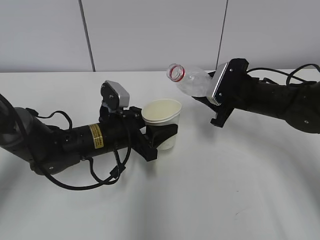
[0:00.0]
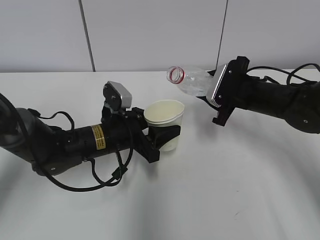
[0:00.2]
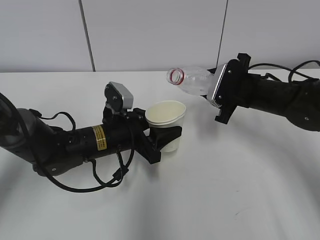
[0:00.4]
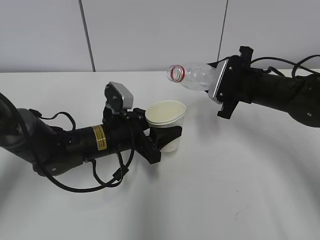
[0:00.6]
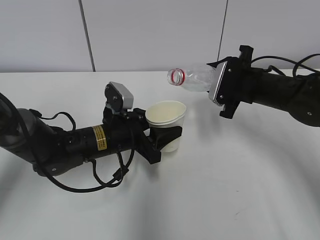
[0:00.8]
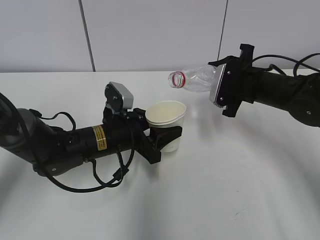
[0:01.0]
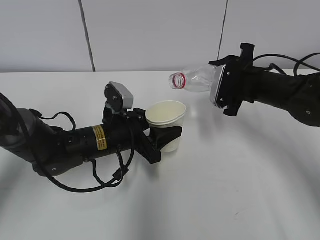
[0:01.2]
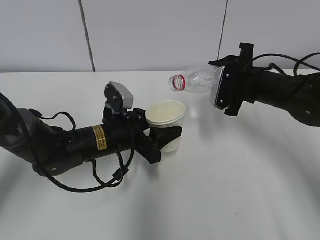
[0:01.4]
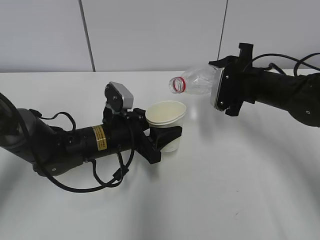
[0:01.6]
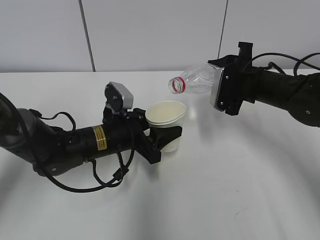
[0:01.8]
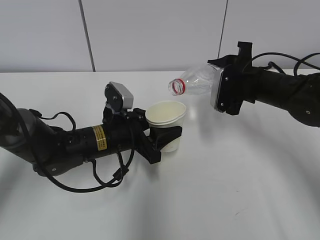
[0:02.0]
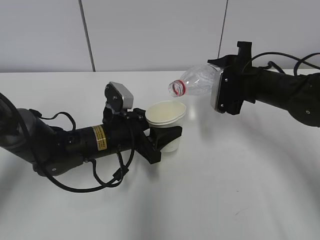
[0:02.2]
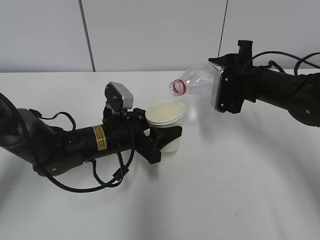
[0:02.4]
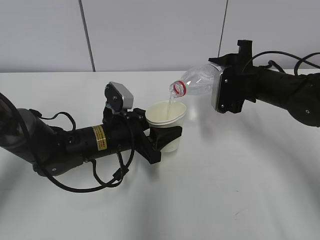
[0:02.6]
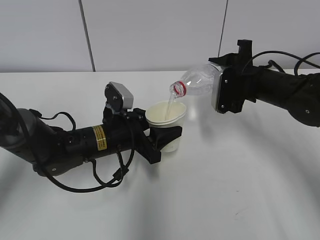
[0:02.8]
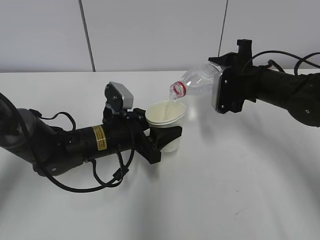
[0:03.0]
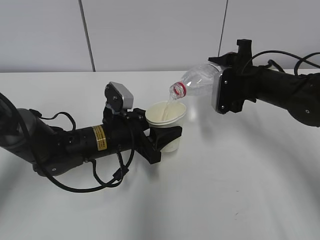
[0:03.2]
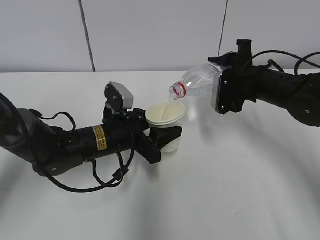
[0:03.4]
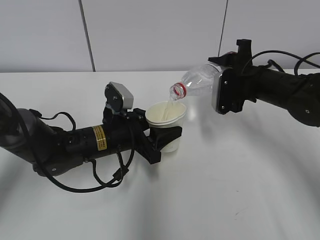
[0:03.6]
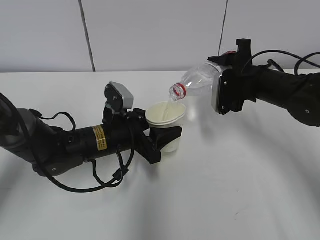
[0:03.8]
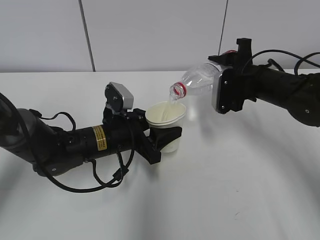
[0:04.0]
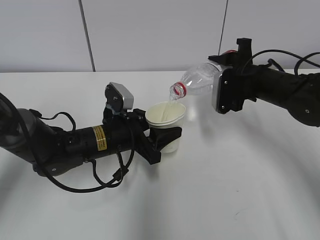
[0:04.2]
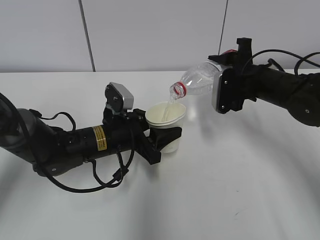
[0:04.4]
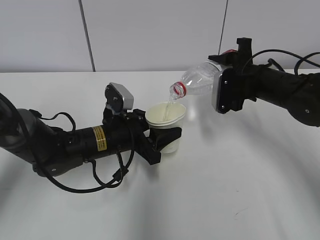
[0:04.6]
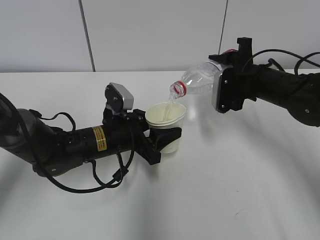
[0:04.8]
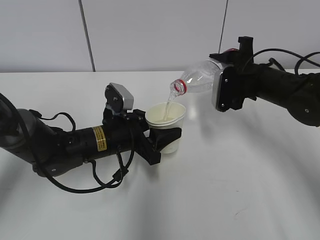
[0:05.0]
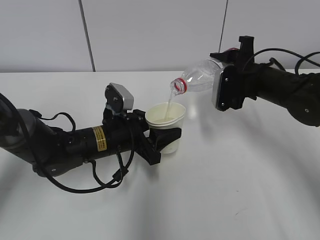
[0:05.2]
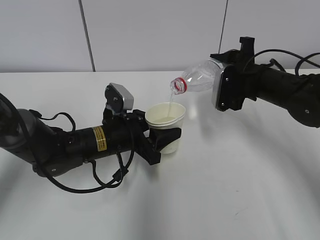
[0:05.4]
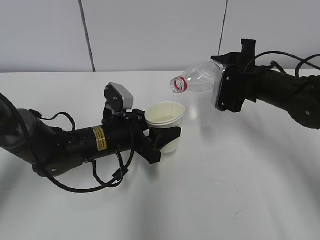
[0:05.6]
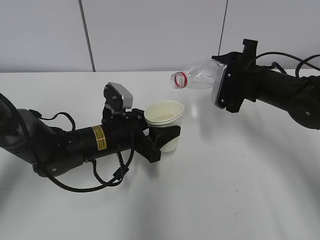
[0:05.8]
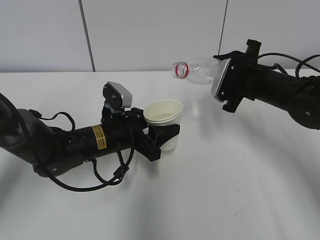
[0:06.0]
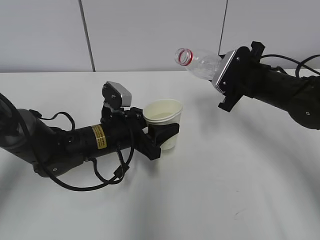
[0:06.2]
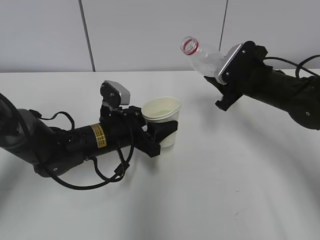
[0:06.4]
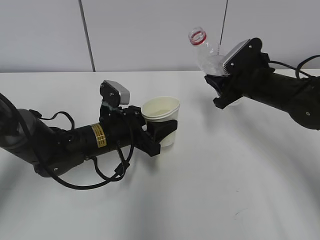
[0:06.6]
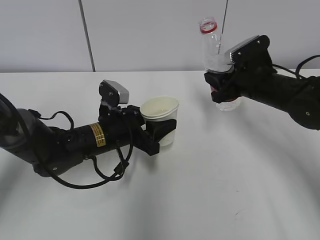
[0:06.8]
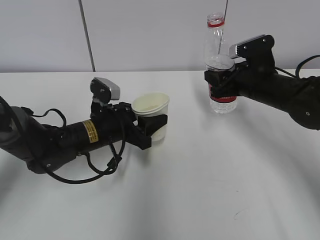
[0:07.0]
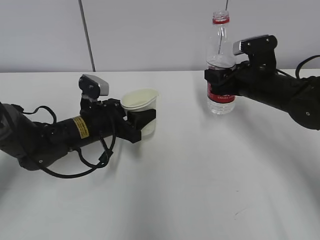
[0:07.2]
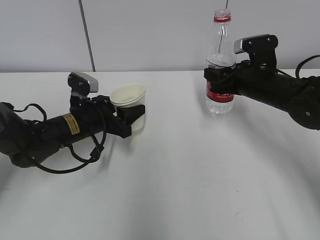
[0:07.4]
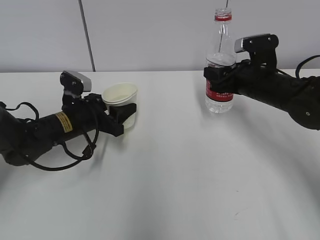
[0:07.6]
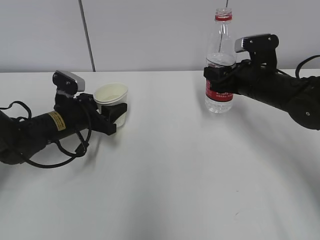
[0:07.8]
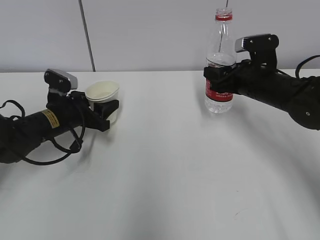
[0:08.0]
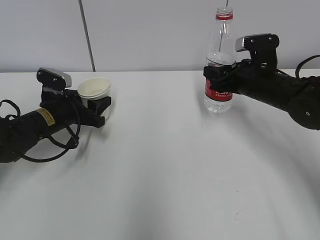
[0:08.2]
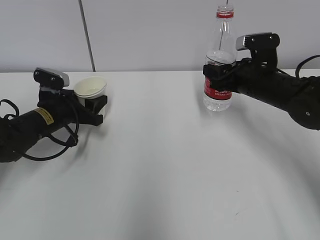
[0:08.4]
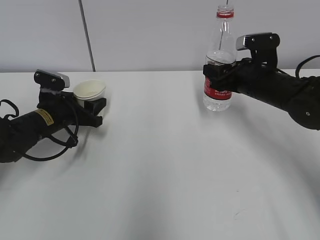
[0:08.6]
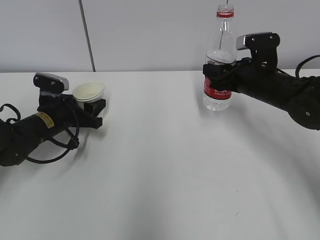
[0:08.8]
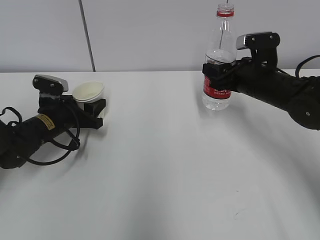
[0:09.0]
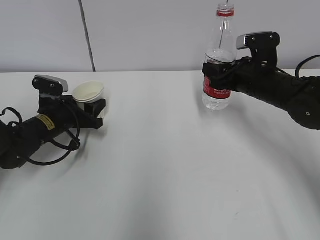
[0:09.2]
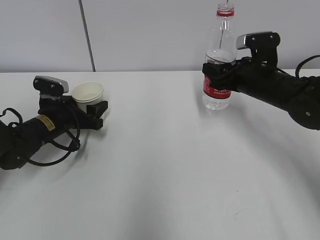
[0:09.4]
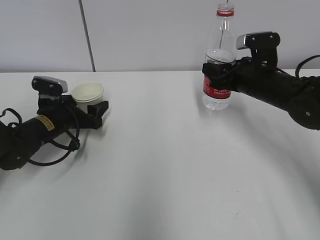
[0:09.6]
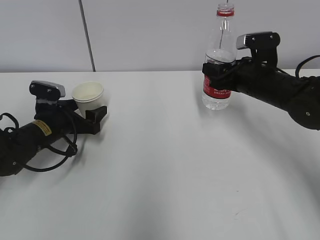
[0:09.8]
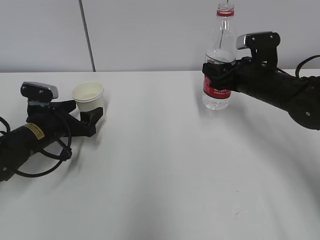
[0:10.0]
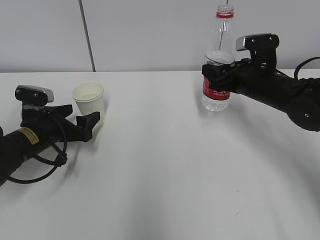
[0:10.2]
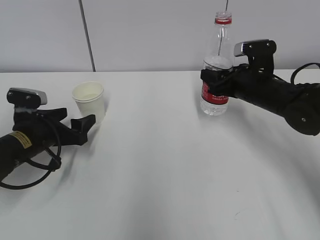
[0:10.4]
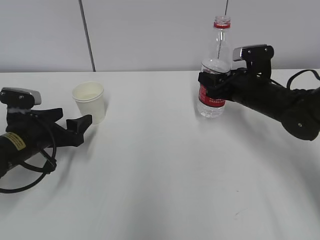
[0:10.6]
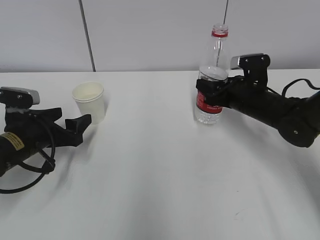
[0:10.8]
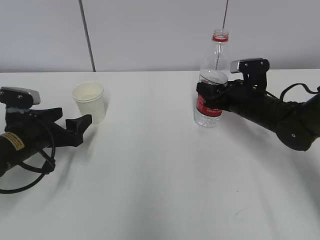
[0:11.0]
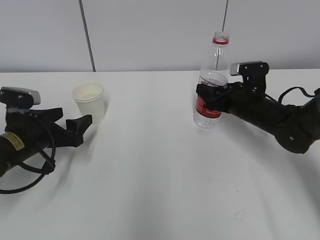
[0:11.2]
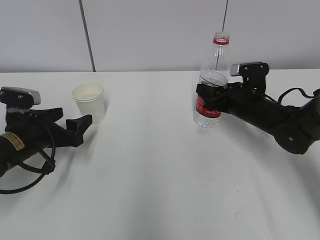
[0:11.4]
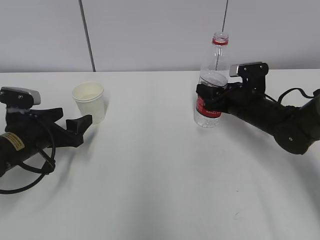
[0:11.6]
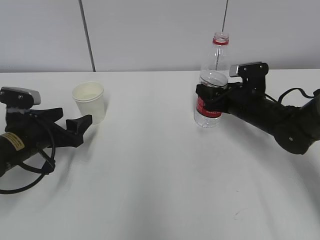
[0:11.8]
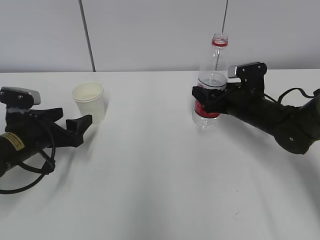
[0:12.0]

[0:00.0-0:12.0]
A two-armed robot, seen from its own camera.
Step, 0:00.0 to 0:02.6: Fill water with the left hand.
Step, 0:00.0 to 0:02.6: Pour water with the right hand.
Step, 0:04.2 to 0:05.6: Place the paper cup with the left hand.
0:01.6 to 0:03.0: The grippers make only small movements.
0:03.0 to 0:04.4: The two grippers keep their place.
0:04.4 to 0:06.0: The grippers move only a little.
0:06.0 to 0:07.6: The left gripper travels to the left by about 10 cm.
0:07.6 to 0:09.0: The left gripper moves to the left, approximately 5 cm.
0:09.0 to 0:10.4: The left gripper moves backward, about 5 cm, and opens.
0:10.4 to 0:12.0: The right gripper opens its fingers.

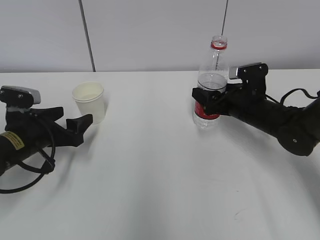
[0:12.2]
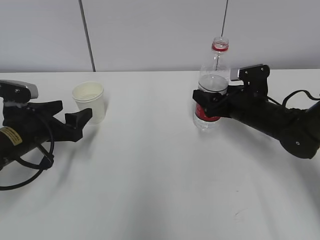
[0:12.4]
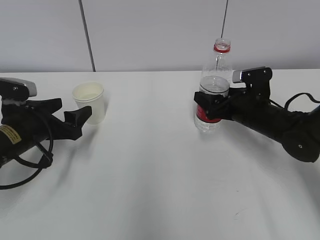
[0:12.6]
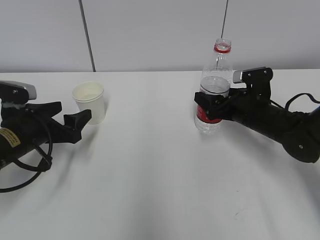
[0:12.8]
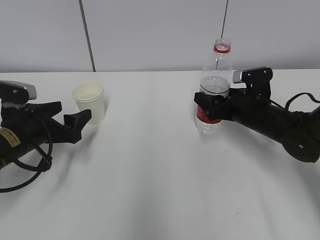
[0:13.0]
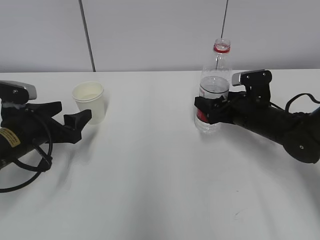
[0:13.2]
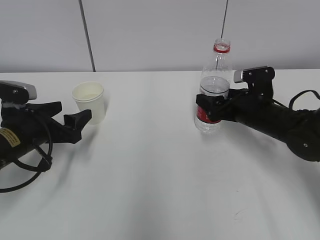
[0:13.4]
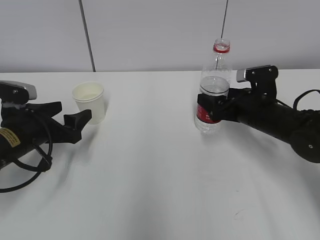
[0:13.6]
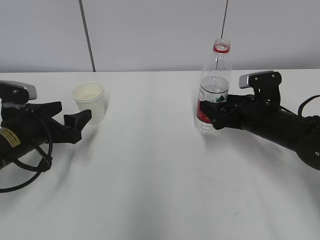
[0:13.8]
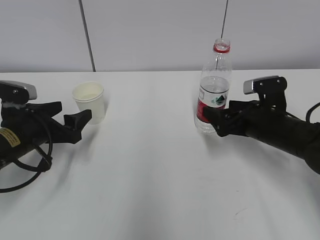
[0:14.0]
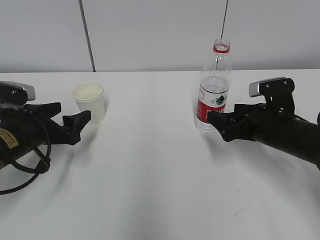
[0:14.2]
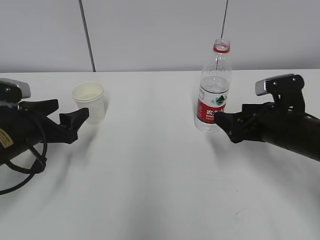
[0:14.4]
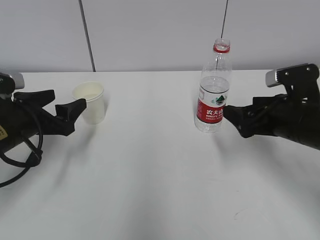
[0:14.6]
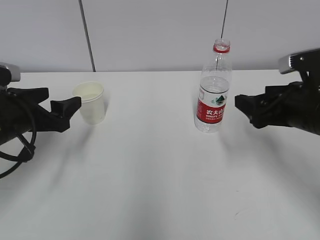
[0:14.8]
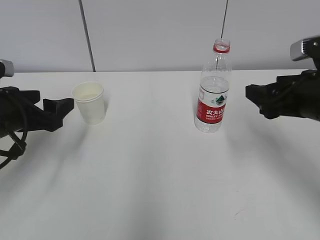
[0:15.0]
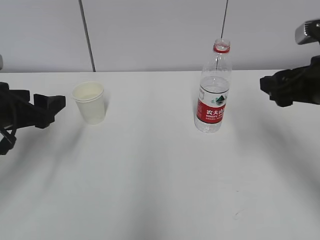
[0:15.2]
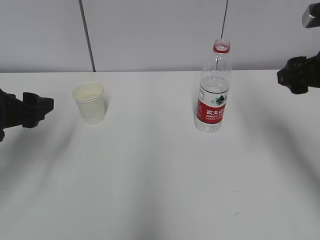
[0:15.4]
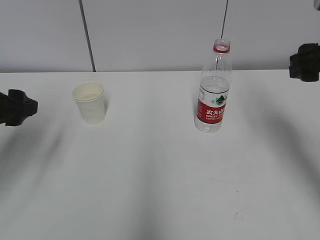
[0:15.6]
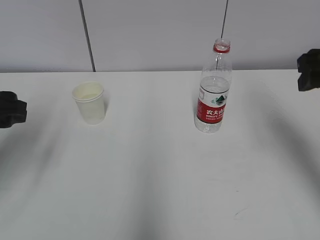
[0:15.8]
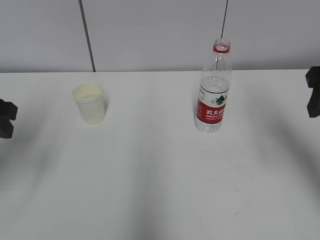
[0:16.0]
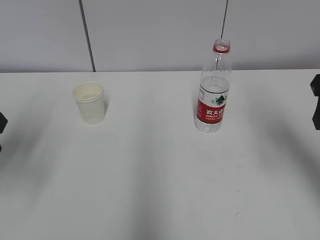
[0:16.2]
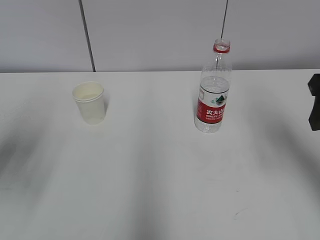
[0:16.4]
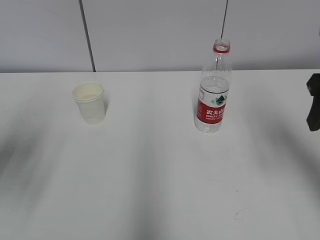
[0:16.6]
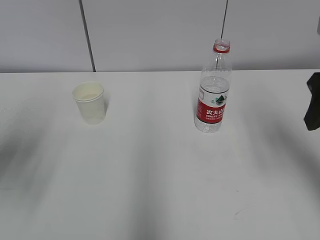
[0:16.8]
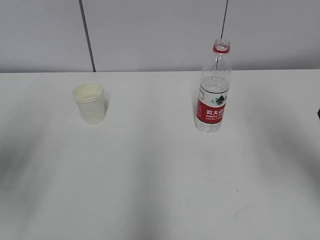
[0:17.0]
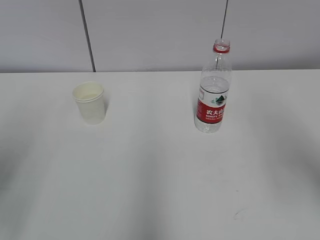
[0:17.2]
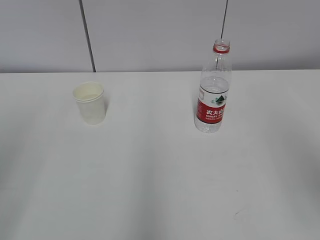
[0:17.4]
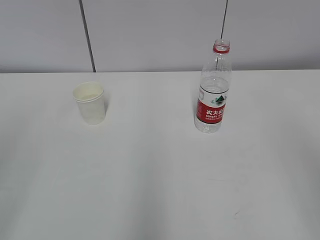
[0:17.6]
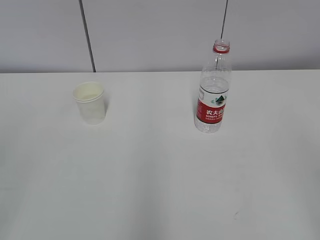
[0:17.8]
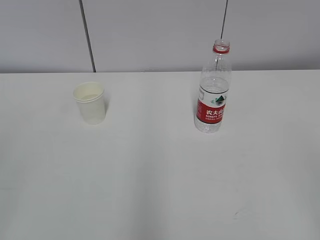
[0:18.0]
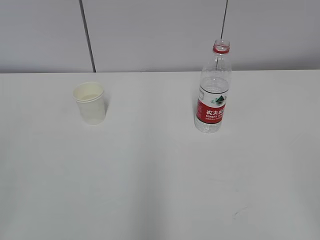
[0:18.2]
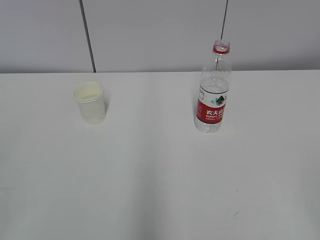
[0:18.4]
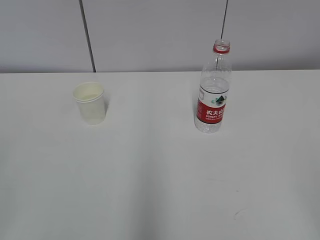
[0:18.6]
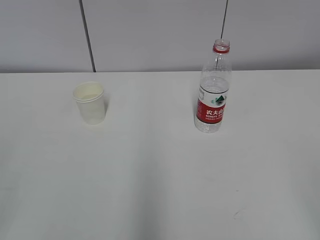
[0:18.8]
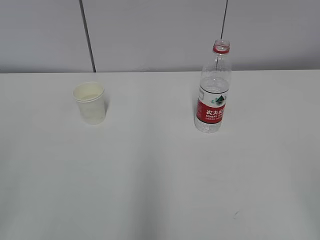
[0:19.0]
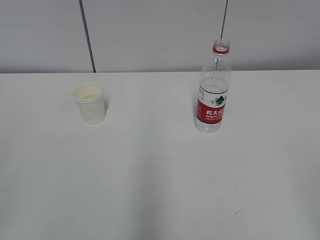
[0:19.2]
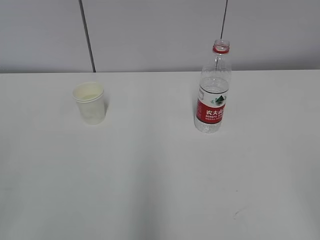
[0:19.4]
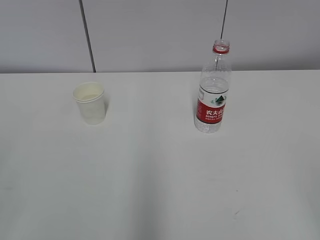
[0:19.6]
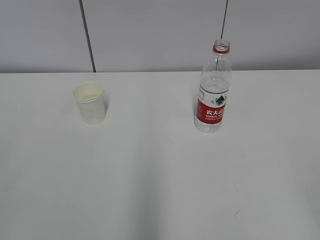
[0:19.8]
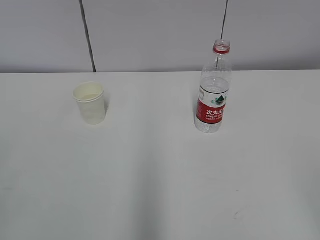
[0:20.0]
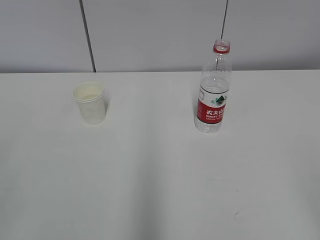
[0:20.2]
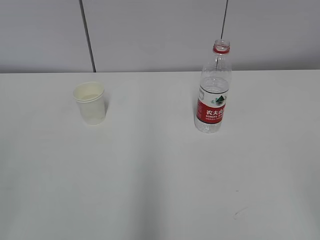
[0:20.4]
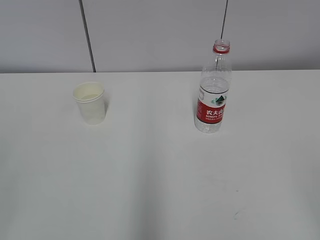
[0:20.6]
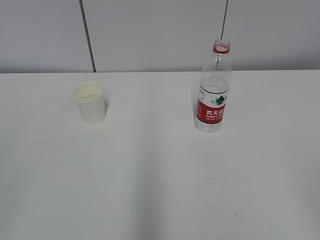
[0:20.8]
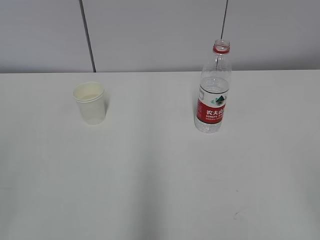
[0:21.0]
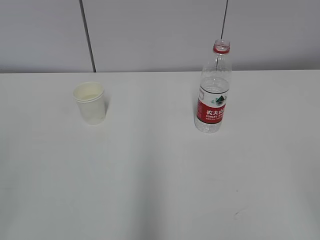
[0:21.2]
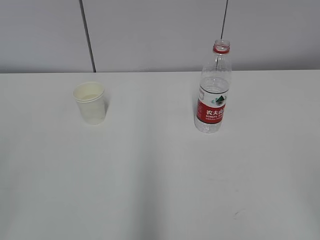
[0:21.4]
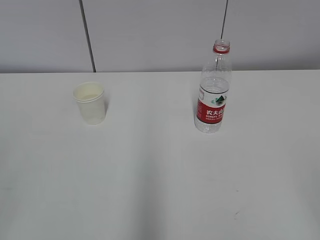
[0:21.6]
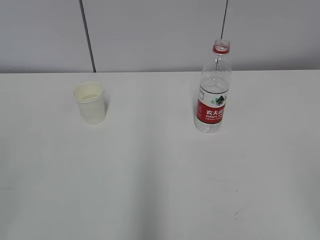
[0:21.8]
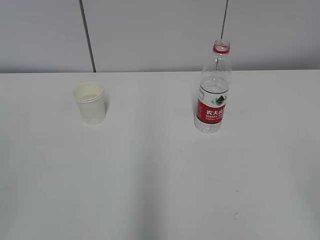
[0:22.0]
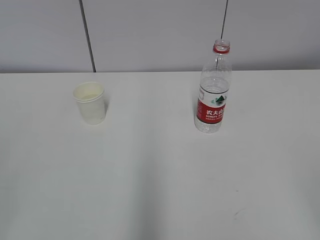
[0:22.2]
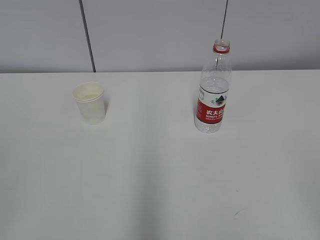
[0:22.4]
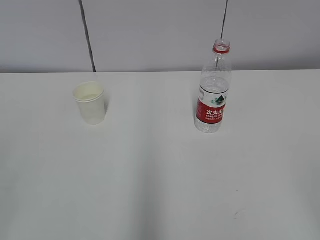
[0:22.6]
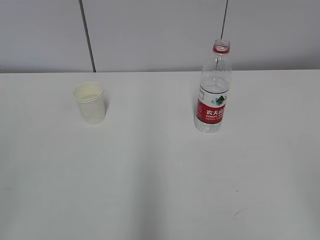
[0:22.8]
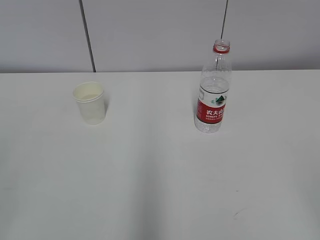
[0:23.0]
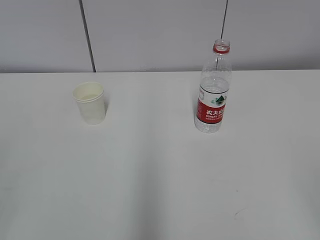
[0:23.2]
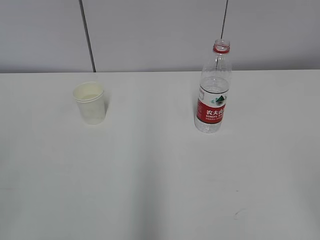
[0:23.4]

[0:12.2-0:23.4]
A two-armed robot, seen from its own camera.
0:12.2 to 0:13.8: The grippers stay close to where they were, moving slightly.
0:13.8 to 0:15.4: The left gripper moves upward, approximately 10 cm, while the right gripper shifts some 15 cm upward and backward, and closes up.
0:15.4 to 0:17.0: Both grippers travel together backward and upward, about 10 cm. The left gripper closes its fingers.
0:17.0 to 0:18.6: The two grippers go about 25 cm backward.
0:20.2 to 0:23.4: Both grippers stay about where they are.
